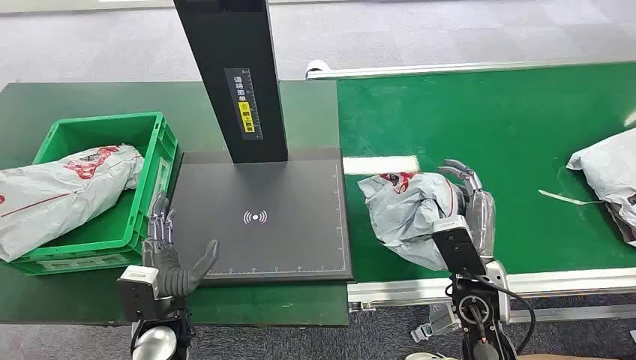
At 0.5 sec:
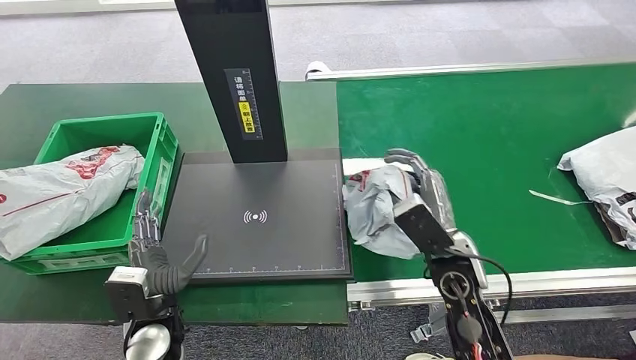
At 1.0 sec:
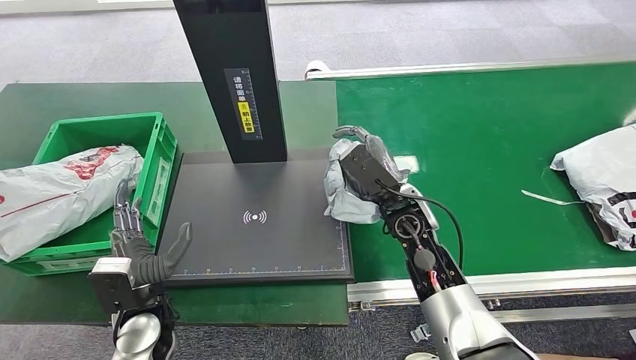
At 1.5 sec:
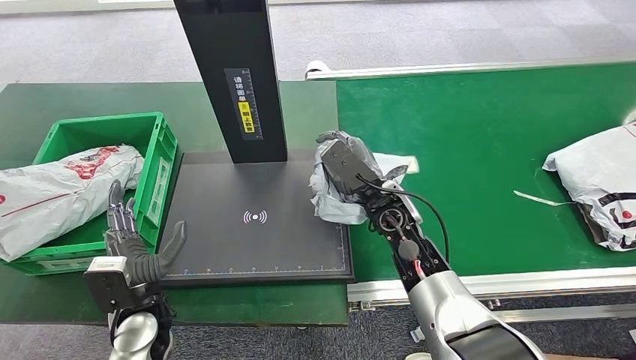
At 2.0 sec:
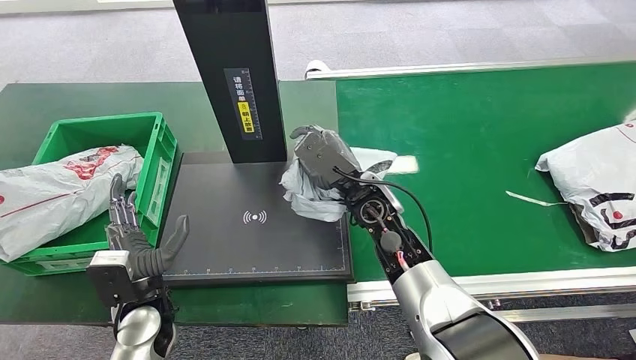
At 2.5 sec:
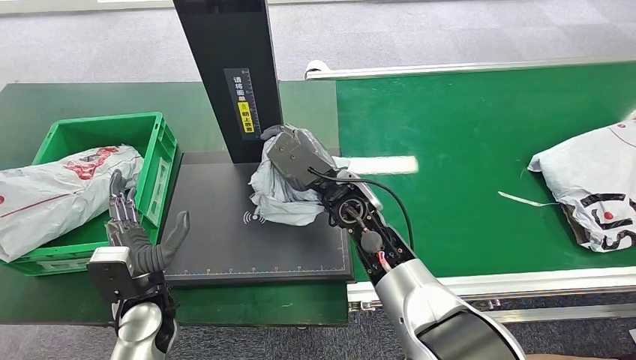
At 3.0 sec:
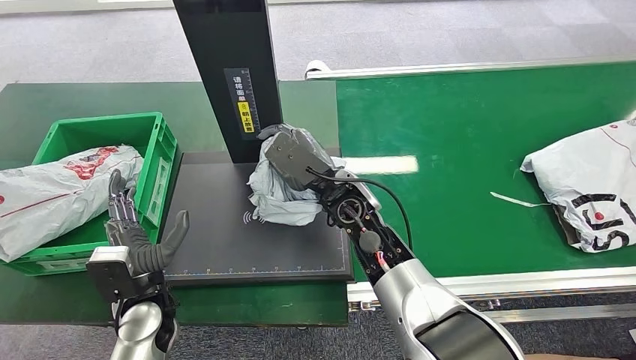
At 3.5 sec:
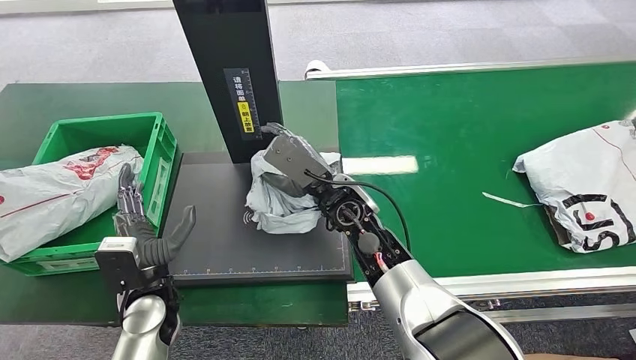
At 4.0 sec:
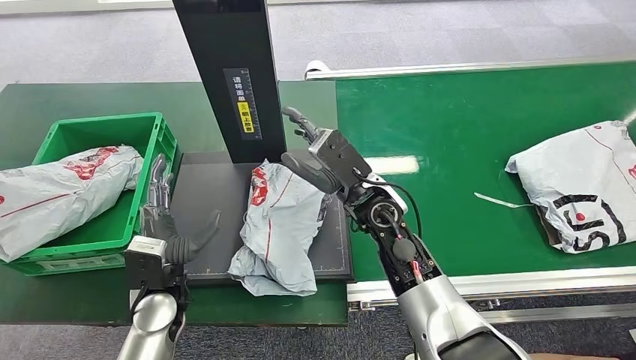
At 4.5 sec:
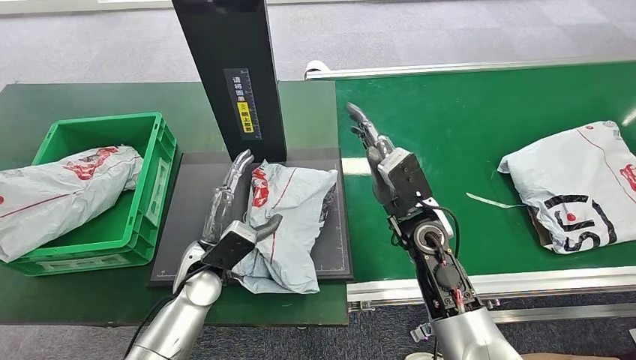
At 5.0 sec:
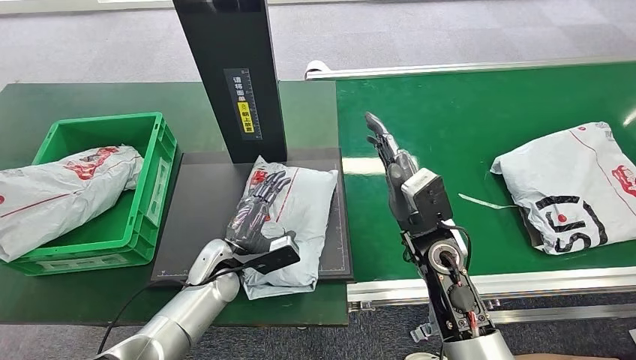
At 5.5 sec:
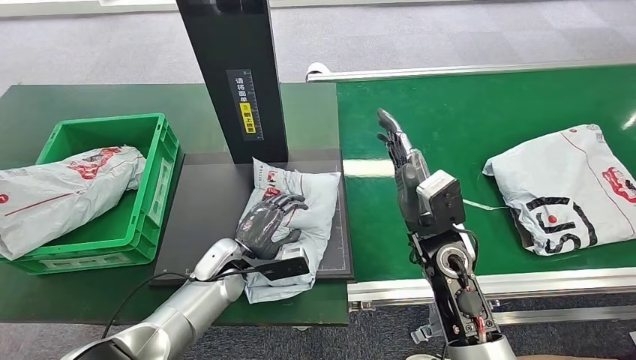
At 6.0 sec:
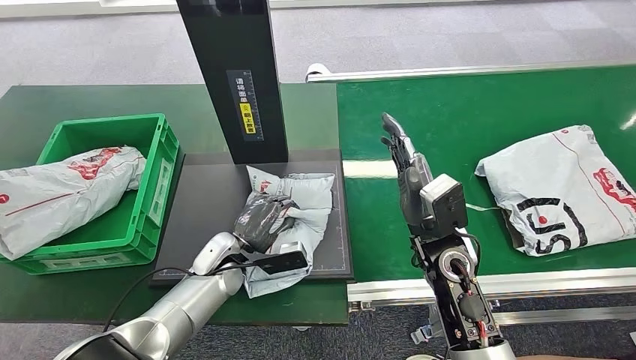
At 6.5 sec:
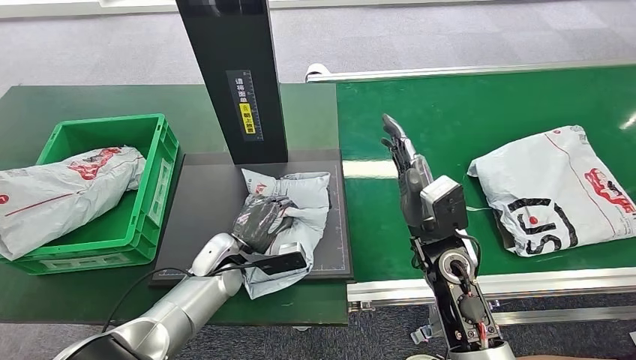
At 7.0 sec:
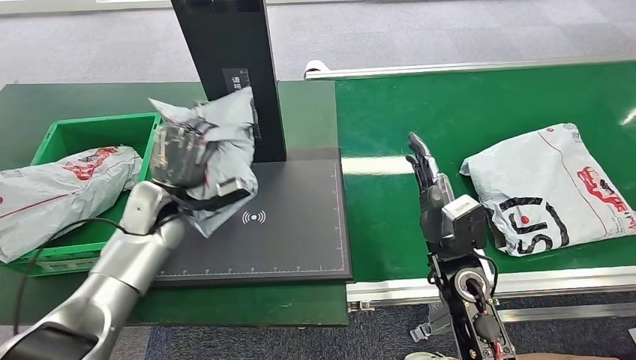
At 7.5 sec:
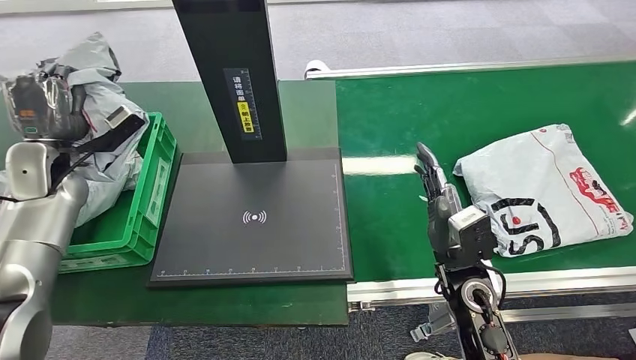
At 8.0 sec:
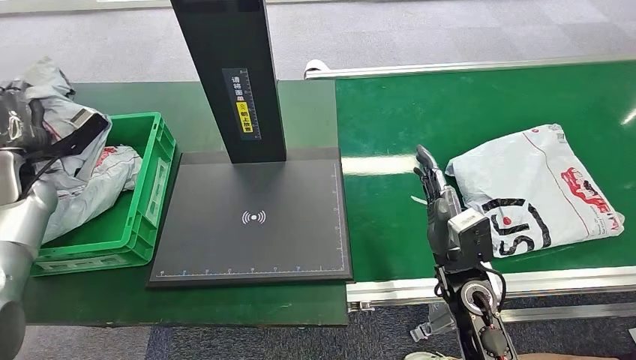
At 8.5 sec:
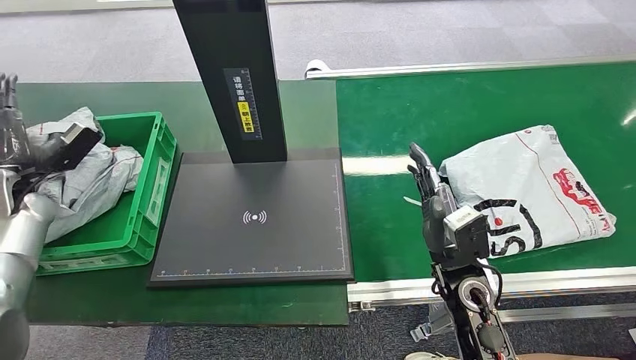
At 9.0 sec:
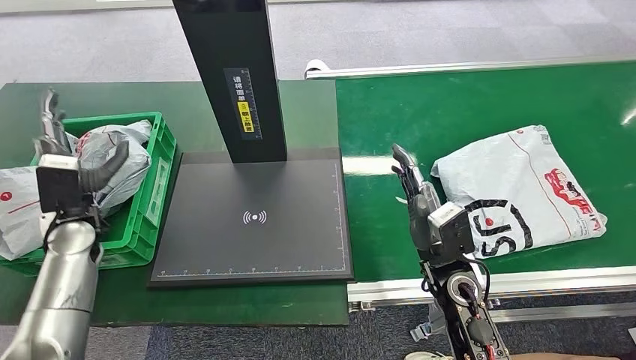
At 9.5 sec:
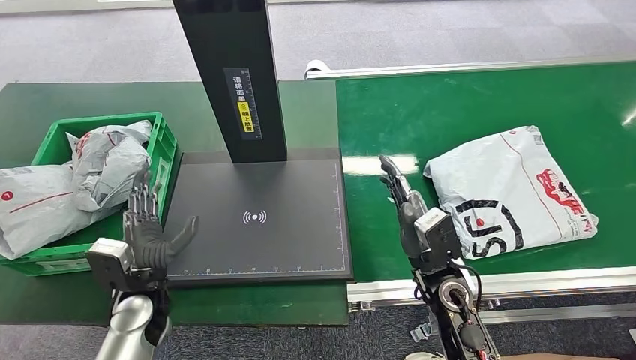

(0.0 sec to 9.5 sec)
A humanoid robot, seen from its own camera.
Step, 0.0 sec - 2.5 sec: Pick up the package from the conveyor belt.
Step, 3.0 sec - 4.5 sec: Place the package onto the inbound machine.
Step, 5.0 sec - 7.5 sec: Pick up the package from the inbound machine.
Step, 8.0 sec - 9.5 sec: Place the package into the parcel locker.
